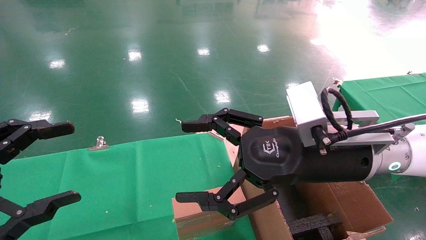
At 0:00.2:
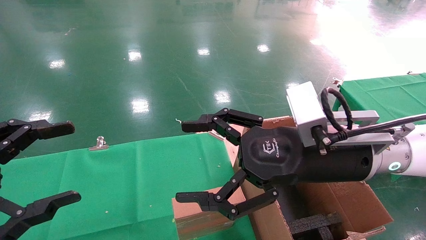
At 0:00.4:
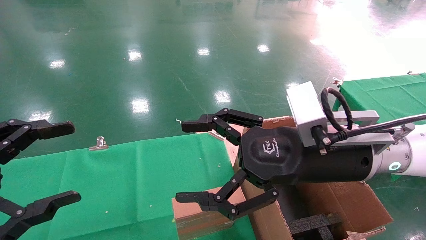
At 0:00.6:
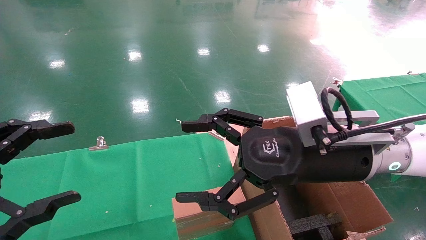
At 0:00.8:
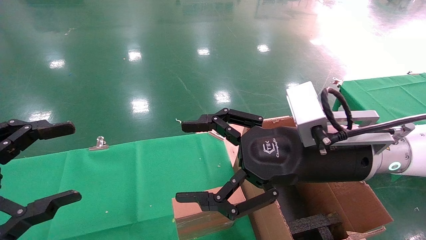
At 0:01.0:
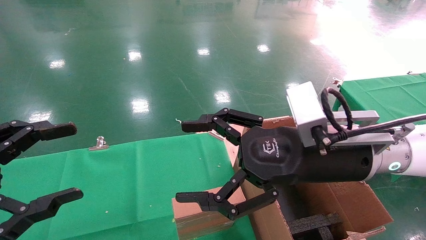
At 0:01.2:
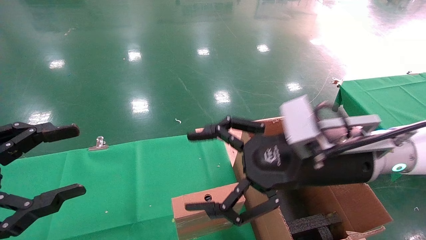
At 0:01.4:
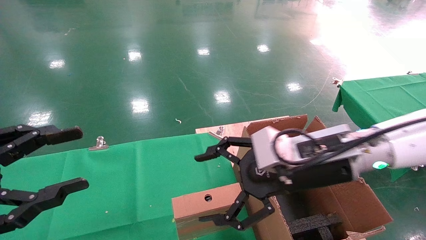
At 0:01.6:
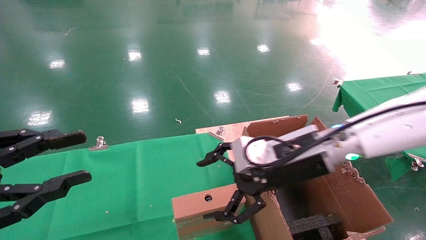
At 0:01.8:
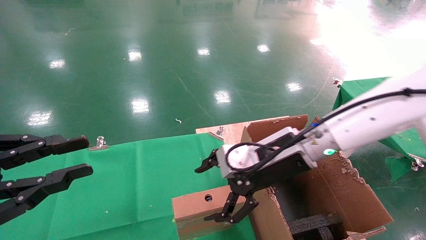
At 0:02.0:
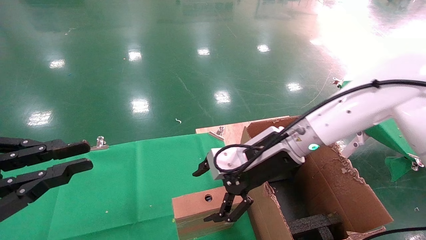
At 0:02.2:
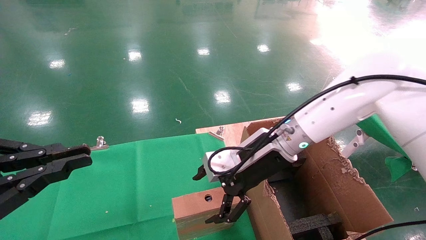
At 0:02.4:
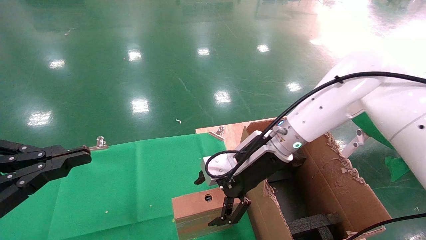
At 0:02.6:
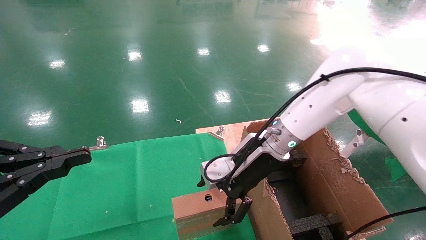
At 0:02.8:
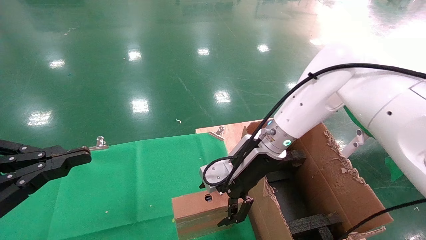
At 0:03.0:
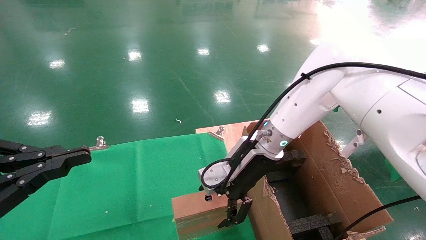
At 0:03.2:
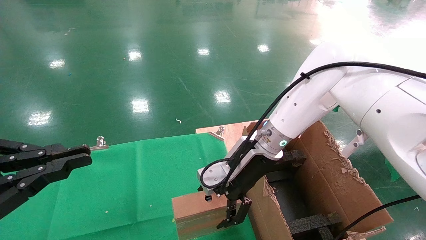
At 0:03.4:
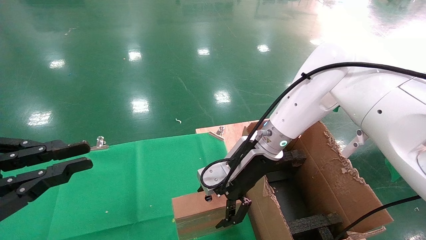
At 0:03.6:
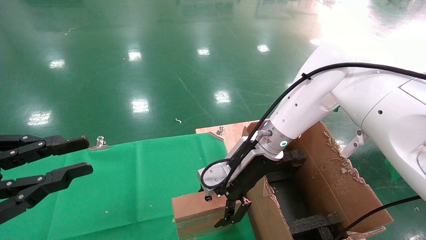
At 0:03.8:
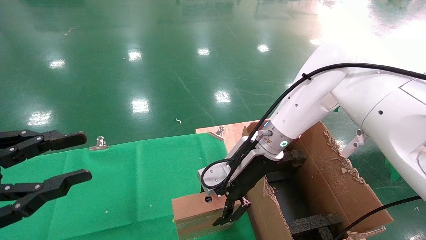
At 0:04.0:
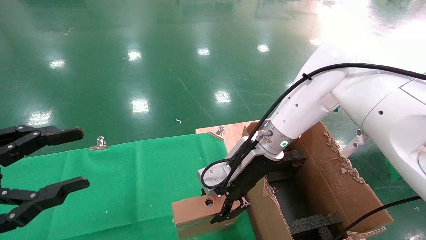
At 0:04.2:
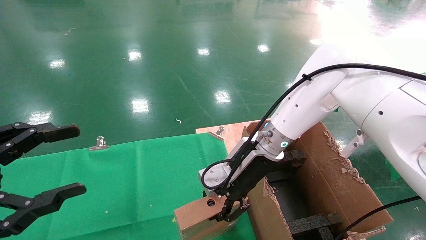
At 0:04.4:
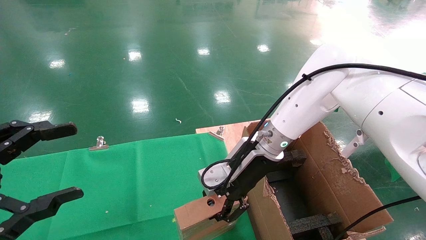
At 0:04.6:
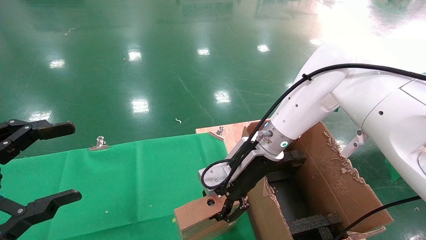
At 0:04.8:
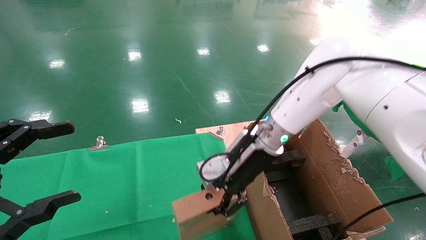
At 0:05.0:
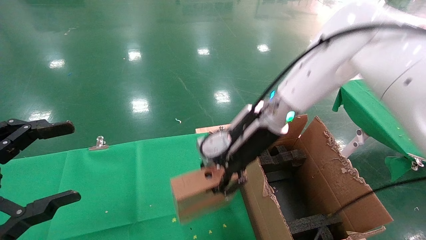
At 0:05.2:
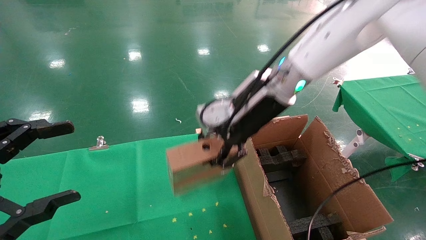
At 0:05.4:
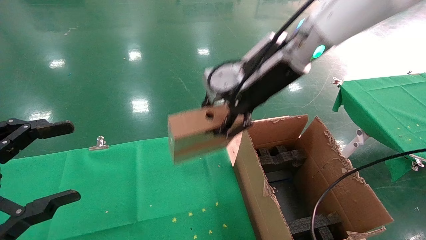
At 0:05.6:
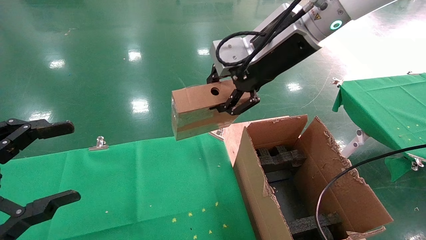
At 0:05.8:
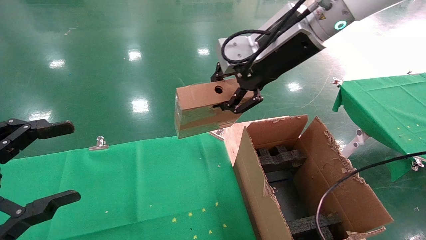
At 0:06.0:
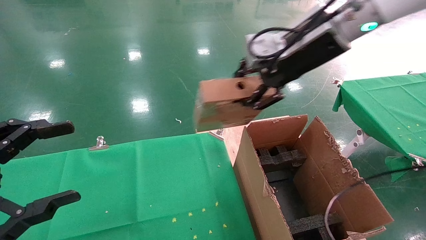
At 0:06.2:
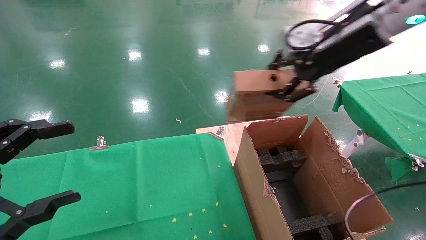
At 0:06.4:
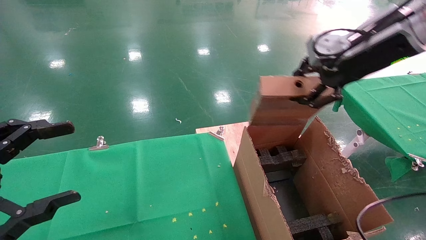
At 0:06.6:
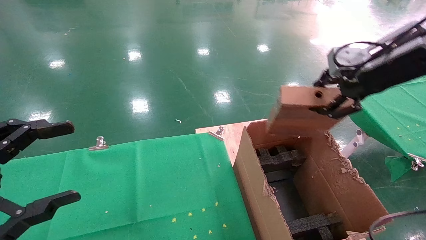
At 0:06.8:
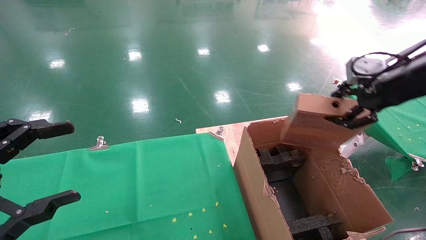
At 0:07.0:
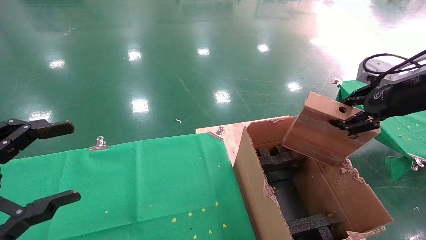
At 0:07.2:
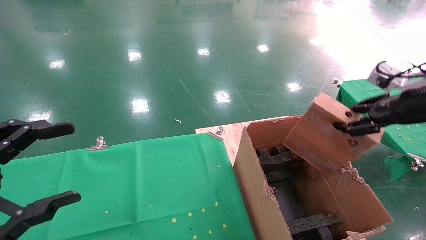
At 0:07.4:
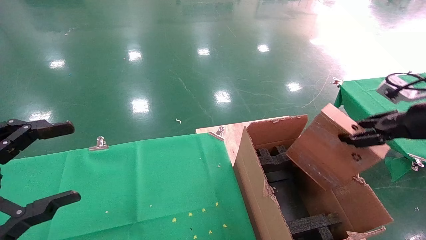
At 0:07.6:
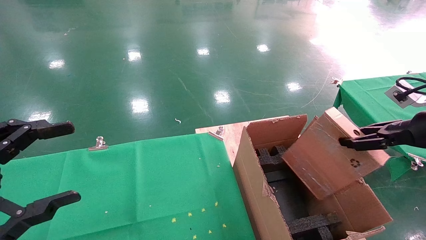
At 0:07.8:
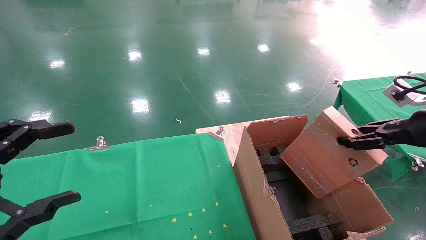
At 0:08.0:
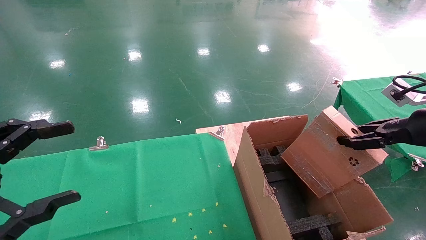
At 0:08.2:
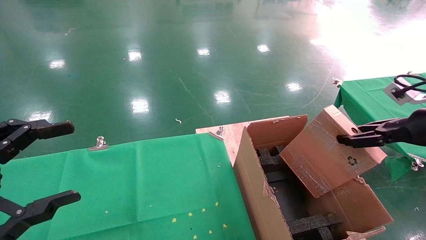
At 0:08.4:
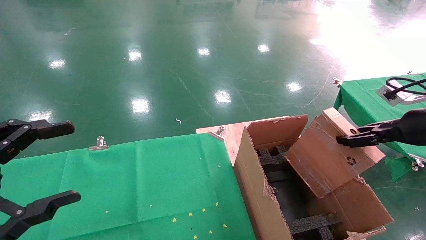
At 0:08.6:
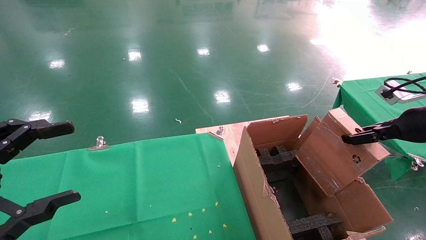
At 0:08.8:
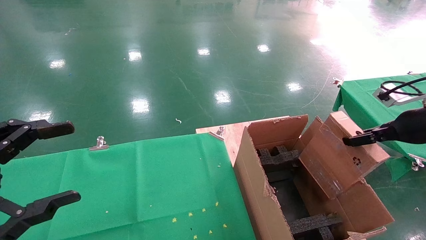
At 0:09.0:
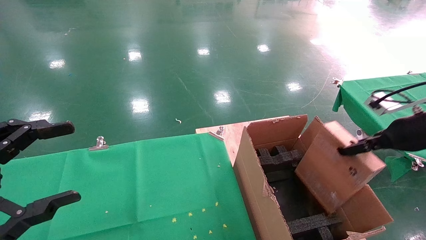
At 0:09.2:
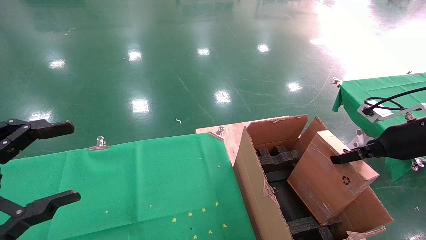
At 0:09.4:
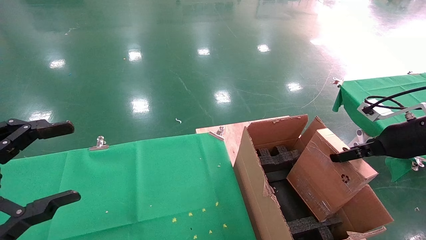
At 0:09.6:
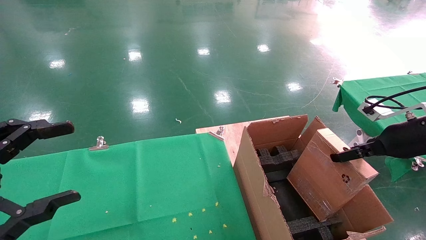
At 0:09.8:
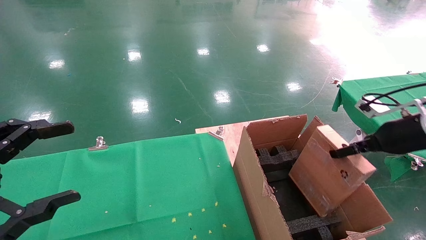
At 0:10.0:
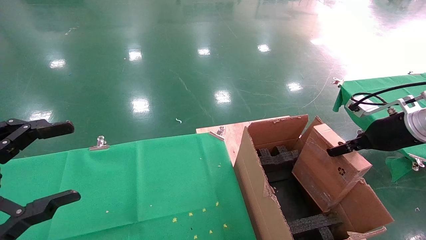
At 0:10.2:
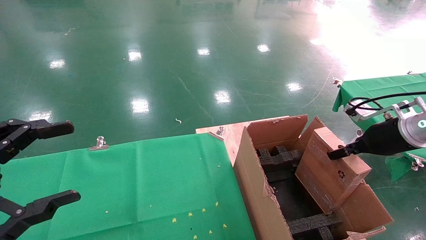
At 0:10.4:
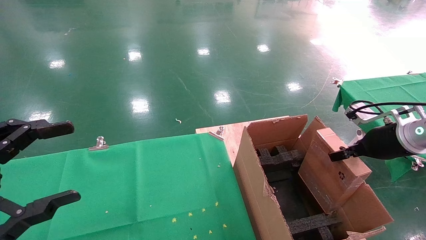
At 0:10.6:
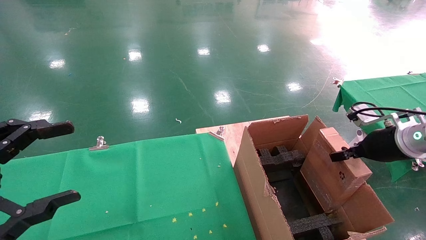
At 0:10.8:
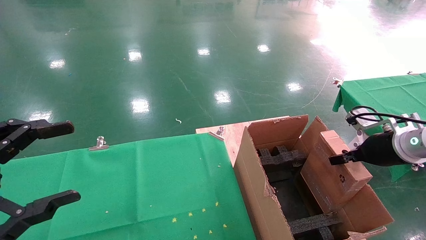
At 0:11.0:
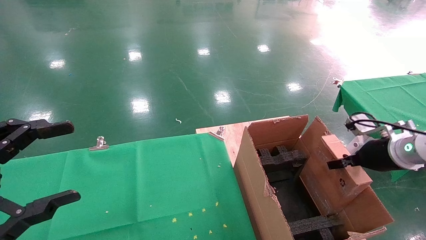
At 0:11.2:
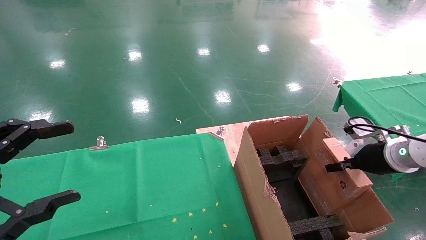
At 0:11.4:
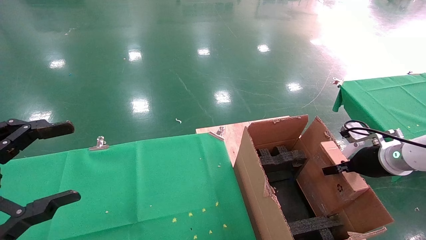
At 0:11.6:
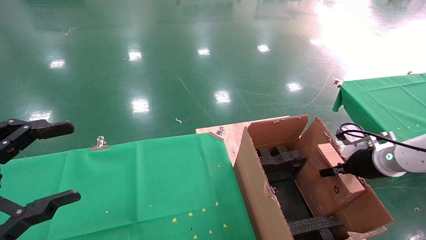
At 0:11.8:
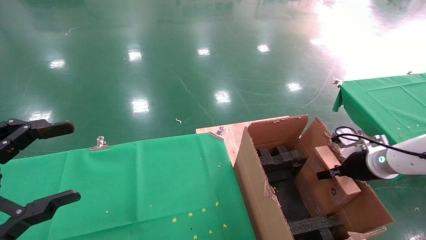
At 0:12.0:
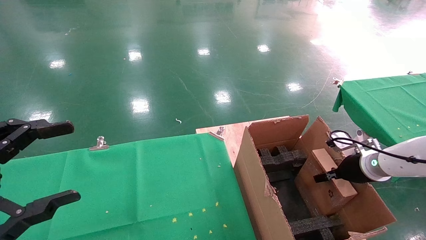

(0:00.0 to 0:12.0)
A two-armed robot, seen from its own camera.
Task of the whole recording: using a robotic arm to pick up a cardboard box and palace it the carton.
Step, 0:01.4 - 0:04.0: Pick up the mouse and the power cord paper box.
0:00.0 - 0:01.6: The left gripper closes, while the right gripper shifts roughly 5 cm forward.
0:01.6 - 0:03.0: The right gripper goes some 10 cm forward. Meanwhile the left gripper closes its fingers.
0:03.0 - 0:04.4: The left gripper opens its fingers, while the right gripper closes.
0:04.4 - 0:06.0: The right gripper goes approximately 25 cm upward and to the right.
0:06.0 - 0:07.6: The right gripper shifts approximately 30 cm to the right and downward.
0:07.6 - 0:09.0: The grippers stay close to where they were, moving slightly.
0:09.0 - 0:10.4: The right gripper ends up about 5 cm from where it was.
0:10.4 - 0:12.0: The right gripper shifts about 10 cm downward.

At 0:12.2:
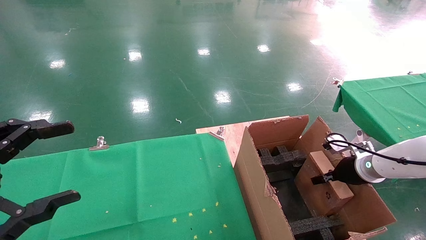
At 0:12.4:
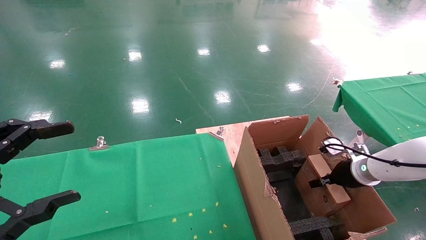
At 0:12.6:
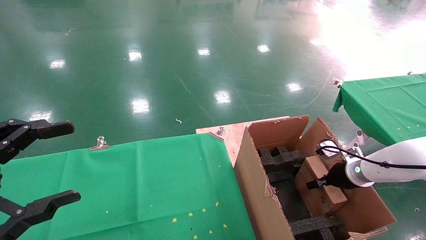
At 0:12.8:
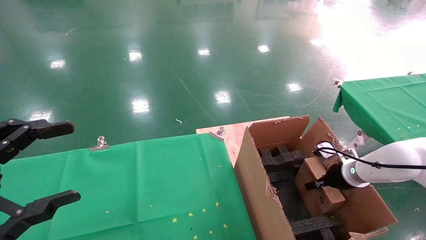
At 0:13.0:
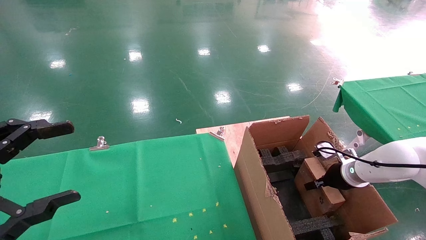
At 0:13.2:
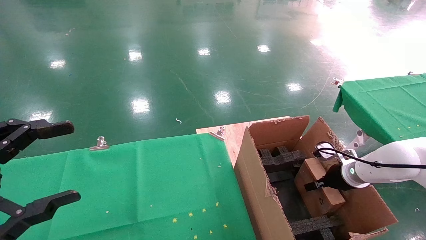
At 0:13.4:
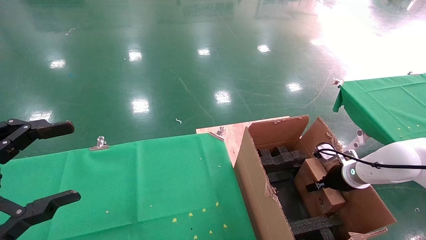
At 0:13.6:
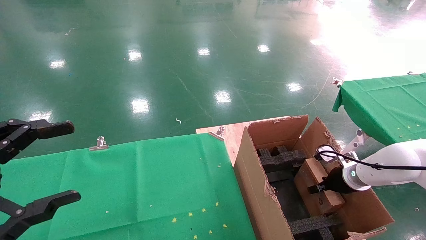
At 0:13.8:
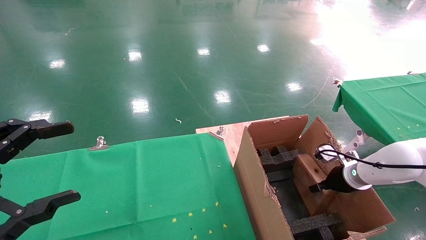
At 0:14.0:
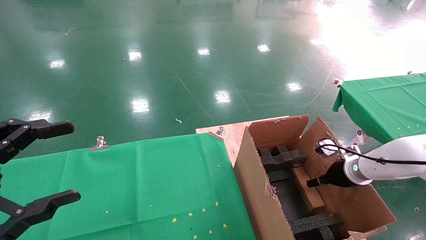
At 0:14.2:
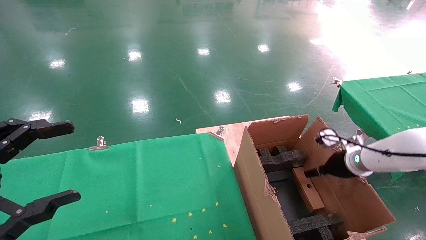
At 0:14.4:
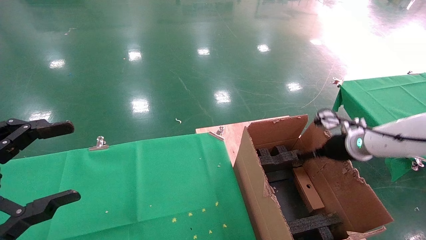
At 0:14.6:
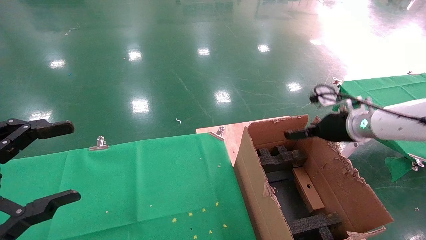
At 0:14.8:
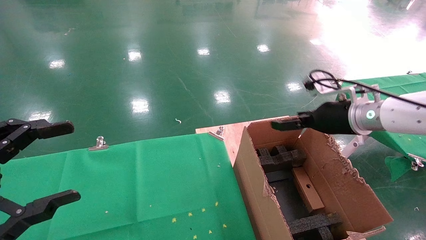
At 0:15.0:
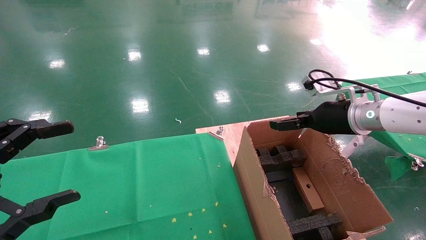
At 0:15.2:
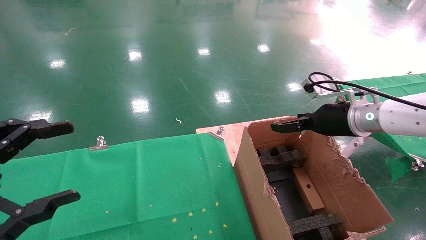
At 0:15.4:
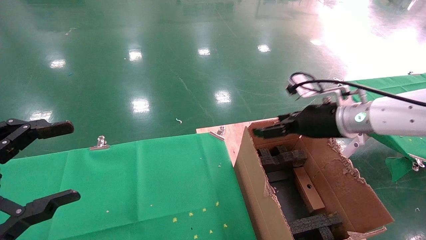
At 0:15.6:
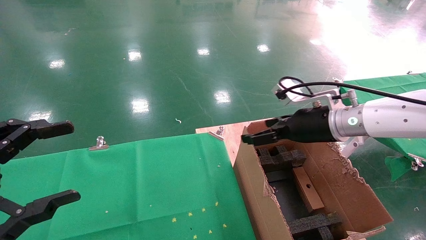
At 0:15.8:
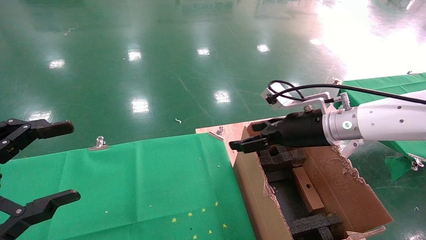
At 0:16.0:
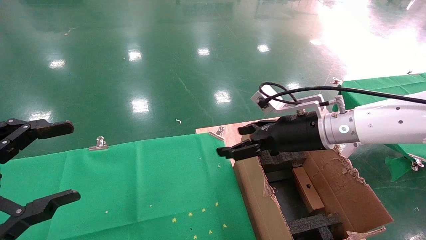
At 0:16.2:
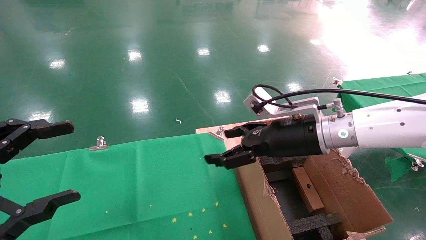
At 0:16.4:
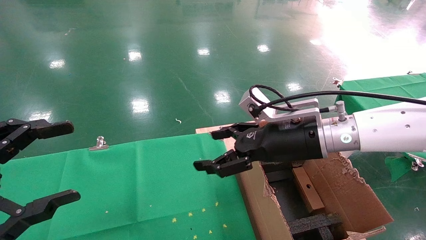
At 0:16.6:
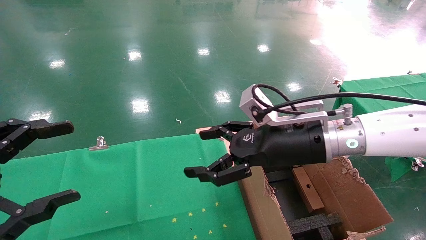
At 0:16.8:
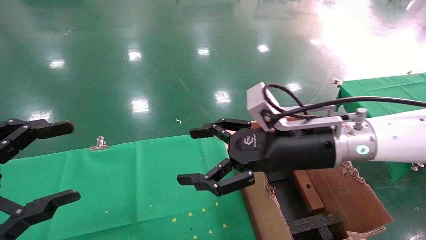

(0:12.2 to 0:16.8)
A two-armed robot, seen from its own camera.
Task of the whole recording: using a robotic arm to pick up a cardboard box and palace it the carton.
0:12.2 - 0:13.8: The right gripper opens up.
0:13.8 - 0:15.2: The right gripper moves upward and to the left, some 20 cm, and opens.
0:15.2 - 0:16.8: The right gripper heads to the left and backward, covering some 15 cm.
